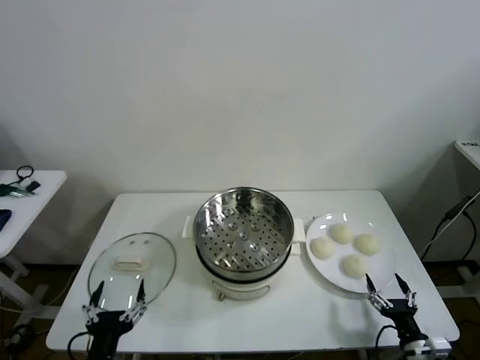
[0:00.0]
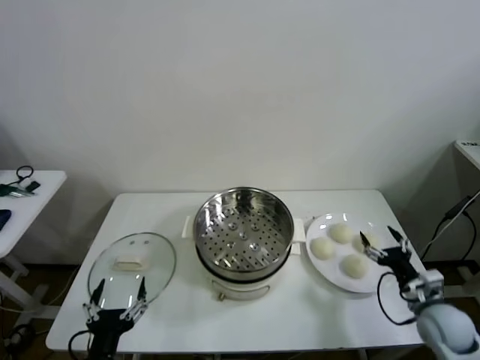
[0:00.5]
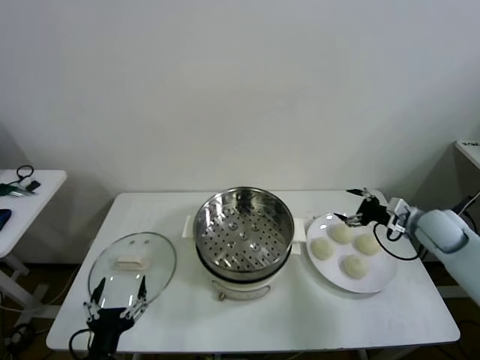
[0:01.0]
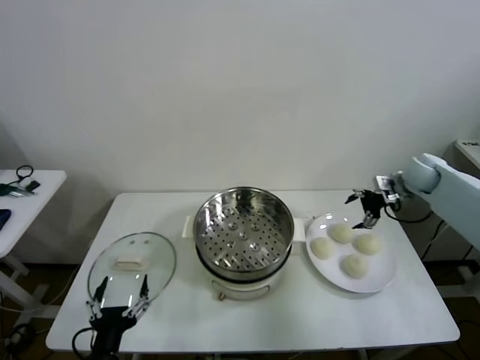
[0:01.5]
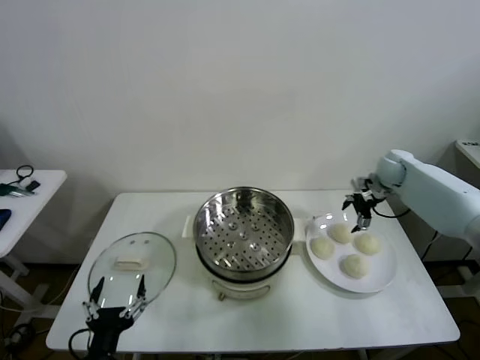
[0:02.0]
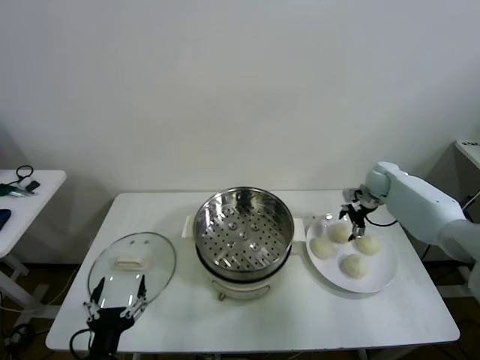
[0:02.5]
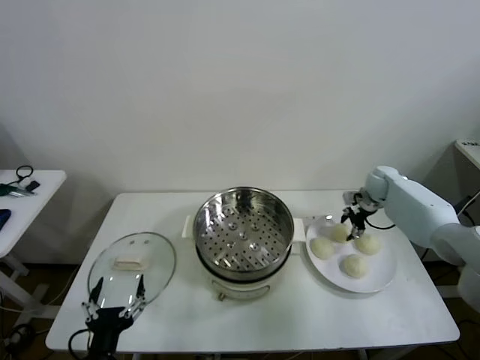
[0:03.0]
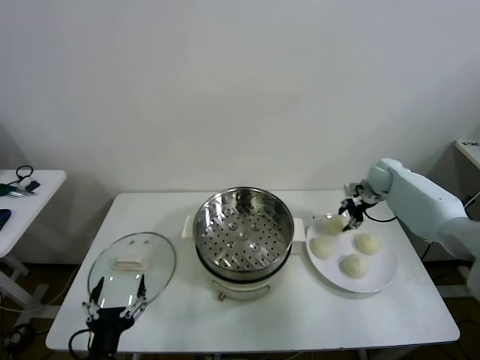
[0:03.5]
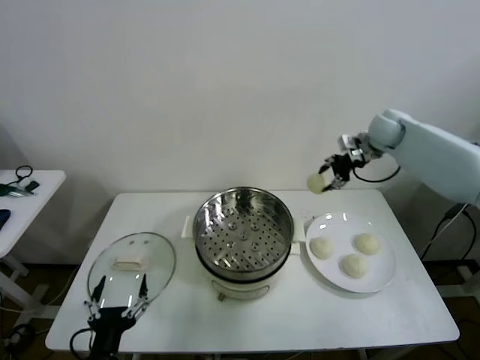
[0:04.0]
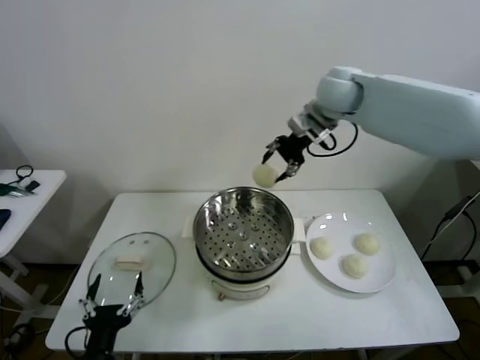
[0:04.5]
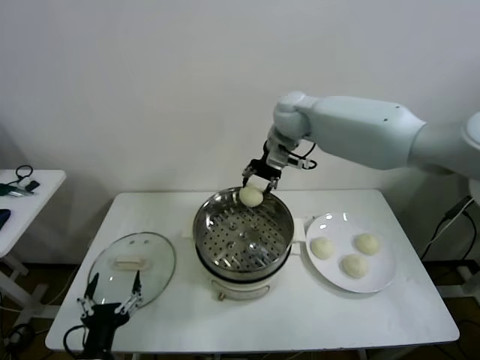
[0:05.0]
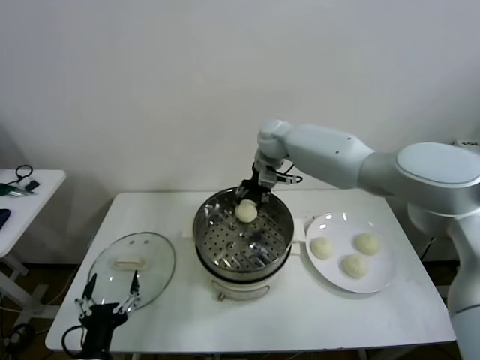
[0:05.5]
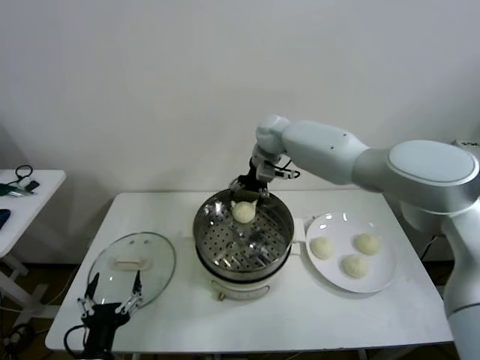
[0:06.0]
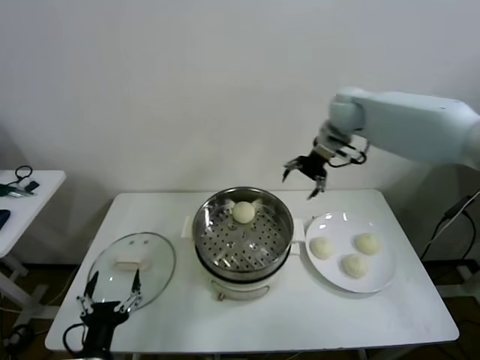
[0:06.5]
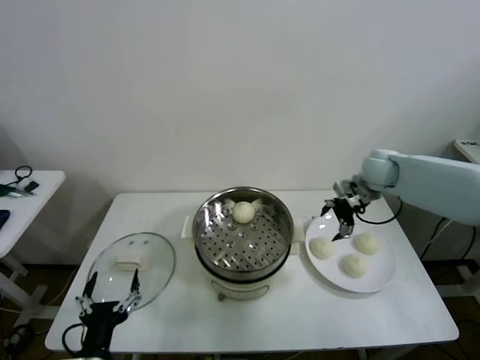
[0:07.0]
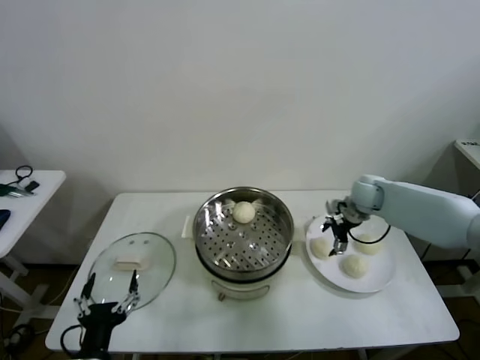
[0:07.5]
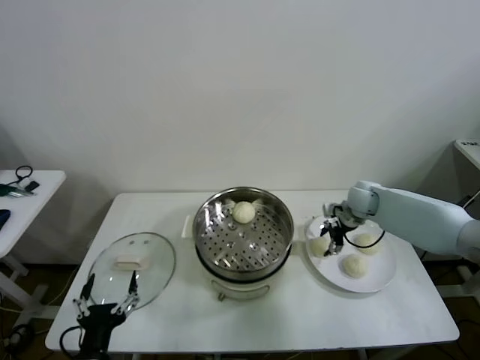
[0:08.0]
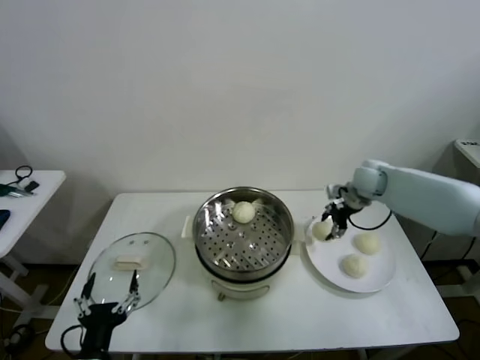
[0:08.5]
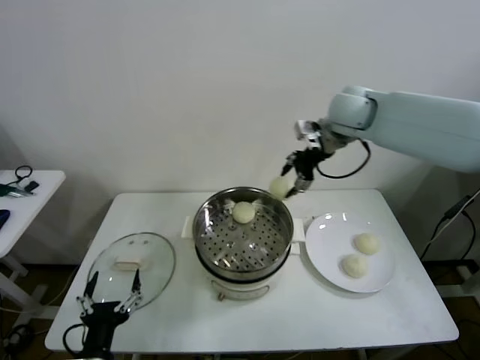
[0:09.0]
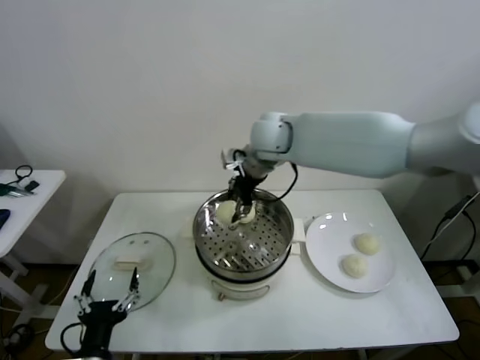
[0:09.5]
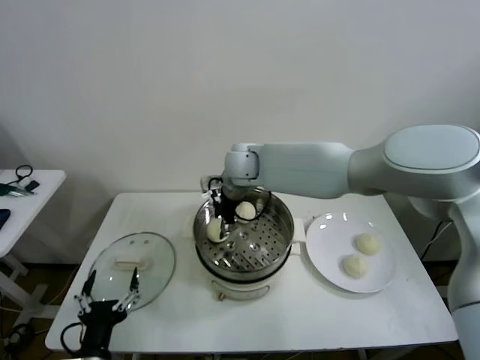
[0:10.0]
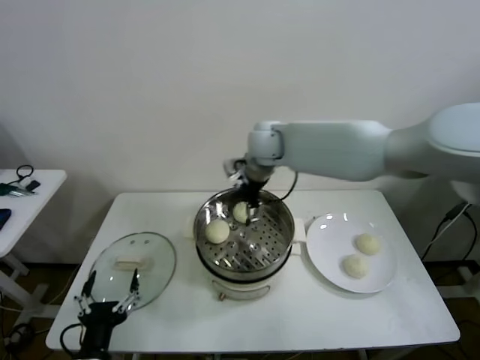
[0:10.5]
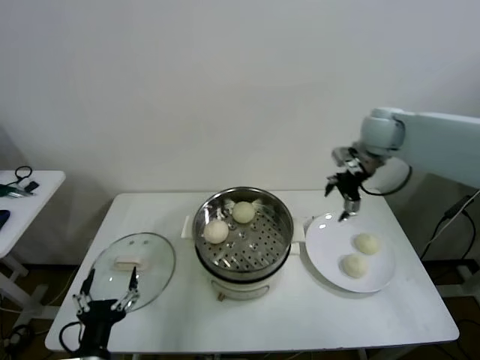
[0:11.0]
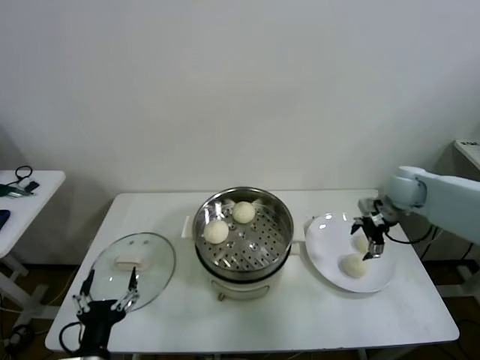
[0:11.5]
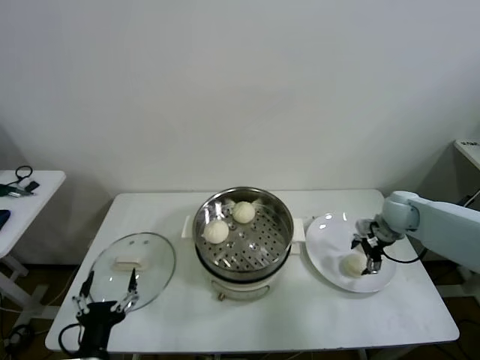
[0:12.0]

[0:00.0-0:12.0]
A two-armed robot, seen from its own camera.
Task of the whole recording: take steamed baozi put them in steamer then cover it.
Step, 0:00.0 to 0:03.0: Grasp the baozi in the plate with right gripper.
Step, 0:03.5 to 0:06.0: Place the baozi on the steamer with right gripper.
Step, 0:06.5 to 0:08.0: Grasp the baozi in the plate with right gripper.
Step, 0:08.5 to 0:10.0: Place the baozi on the steamer with right gripper.
0:02.0 to 0:04.0: The right gripper heads upward and to the left, covering roughly 15 cm, and closes.
0:04.0 to 0:06.0: The right gripper moves to the left, about 25 cm, and opens.
0:06.0 to 0:08.0: The right gripper shifts about 30 cm to the right and downward, and closes its fingers.
0:08.0 to 0:10.0: The right gripper moves to the left and upward, approximately 35 cm.
0:10.0 to 0:12.0: The right gripper is displaced to the right by some 40 cm, and opens up.

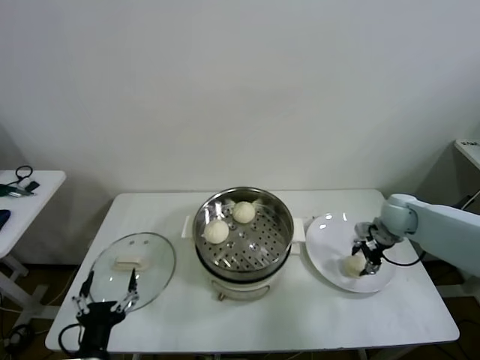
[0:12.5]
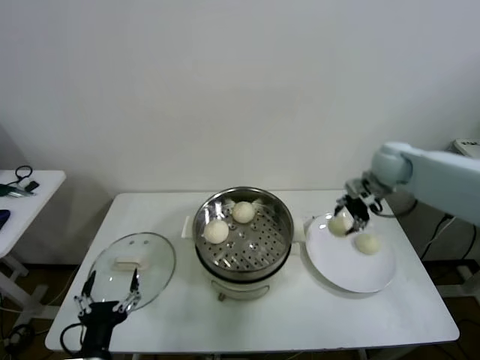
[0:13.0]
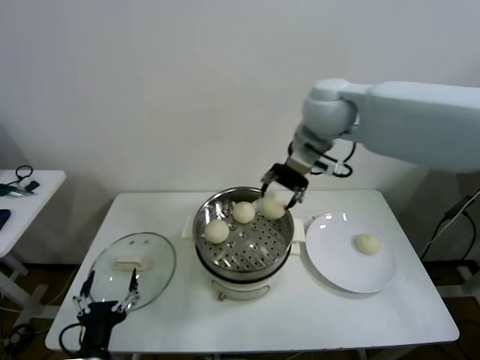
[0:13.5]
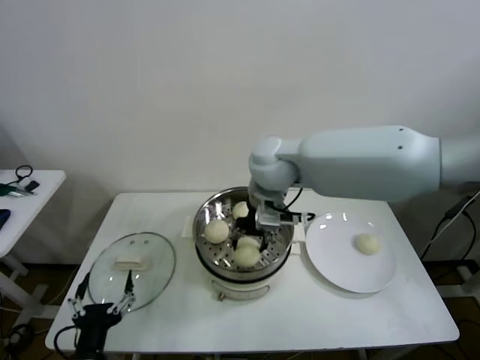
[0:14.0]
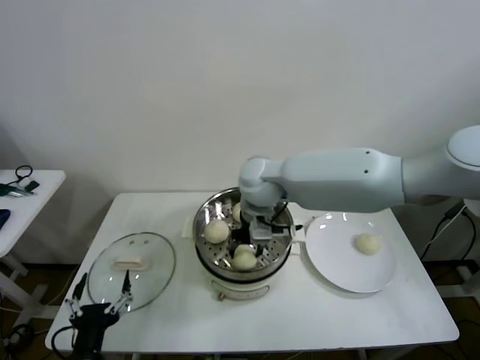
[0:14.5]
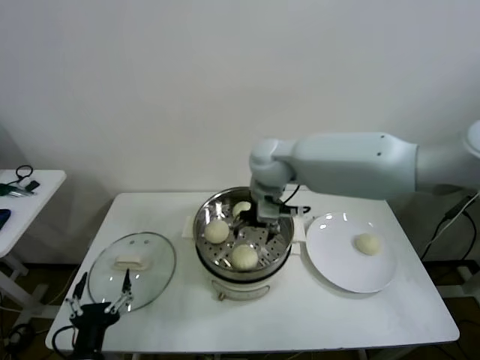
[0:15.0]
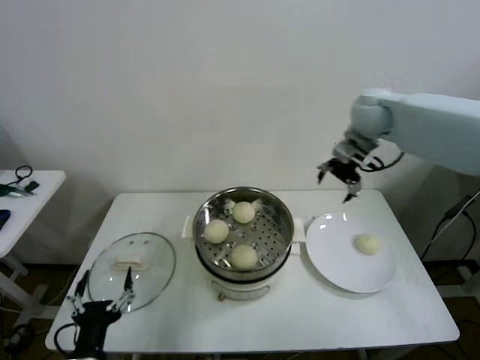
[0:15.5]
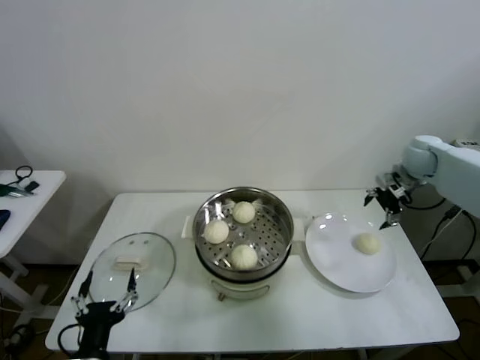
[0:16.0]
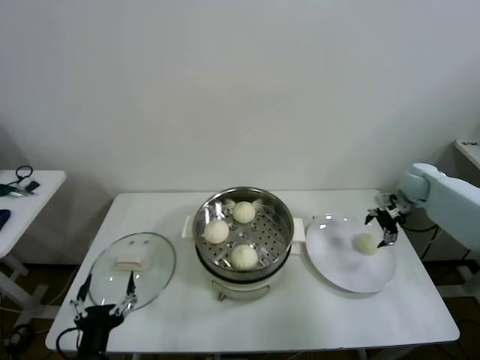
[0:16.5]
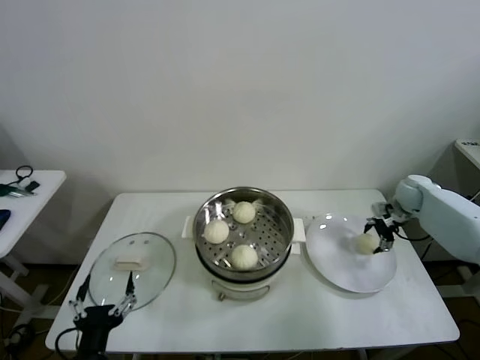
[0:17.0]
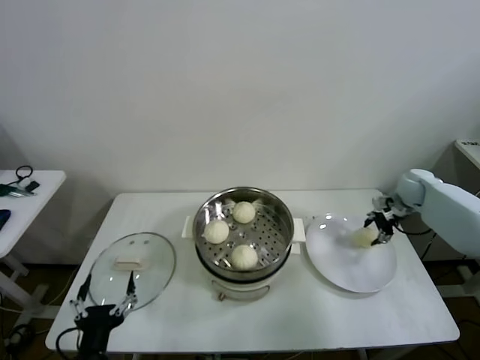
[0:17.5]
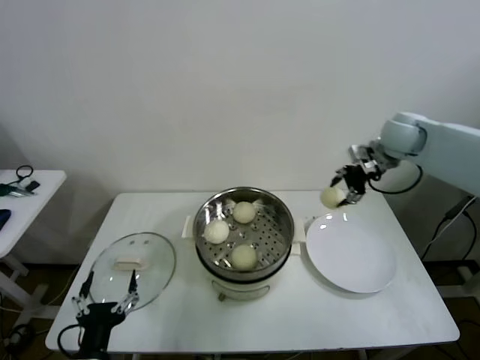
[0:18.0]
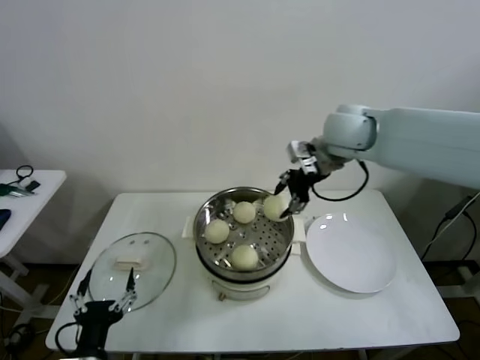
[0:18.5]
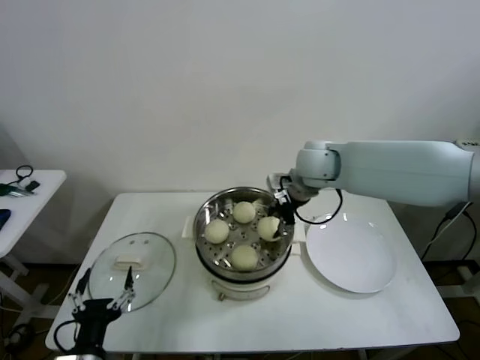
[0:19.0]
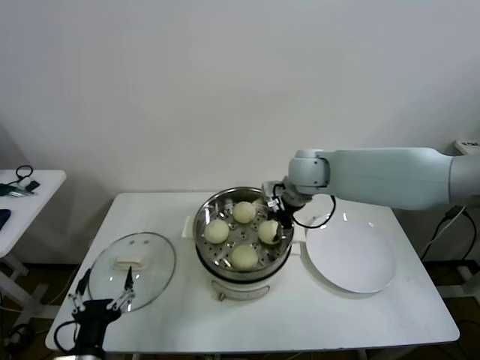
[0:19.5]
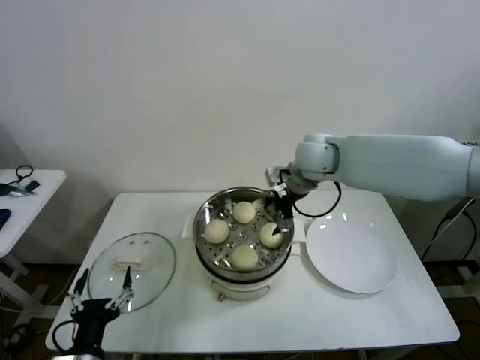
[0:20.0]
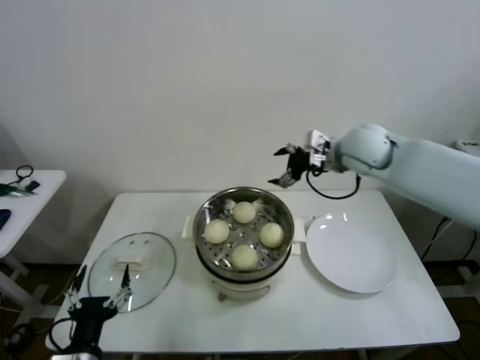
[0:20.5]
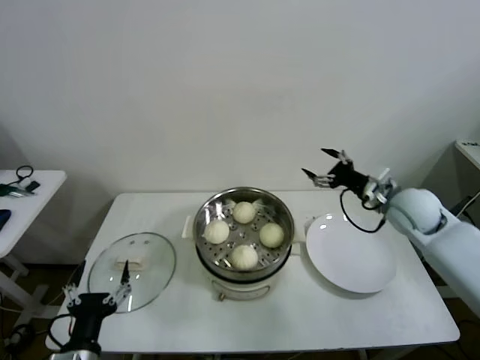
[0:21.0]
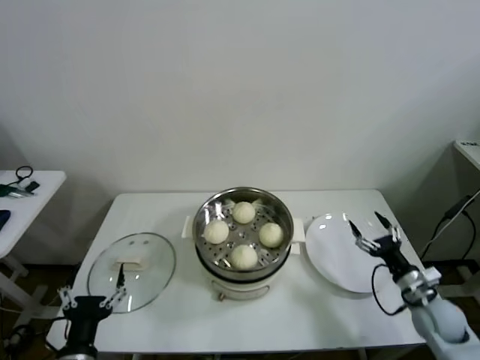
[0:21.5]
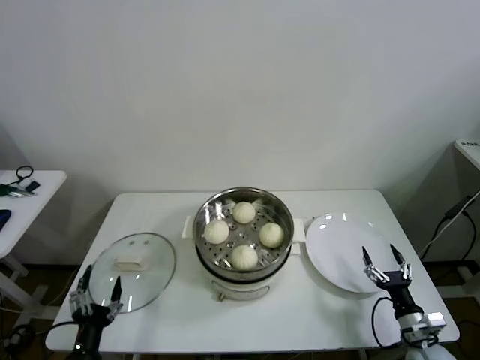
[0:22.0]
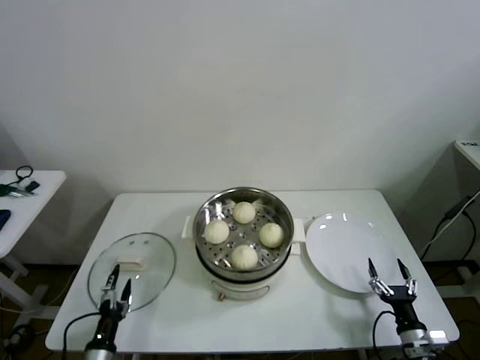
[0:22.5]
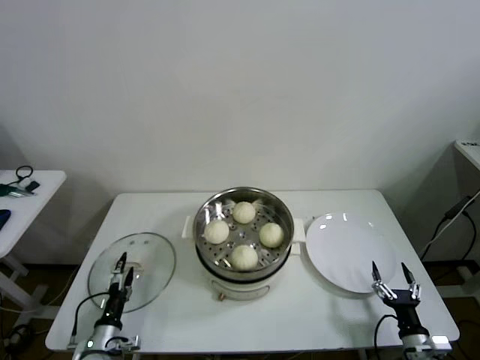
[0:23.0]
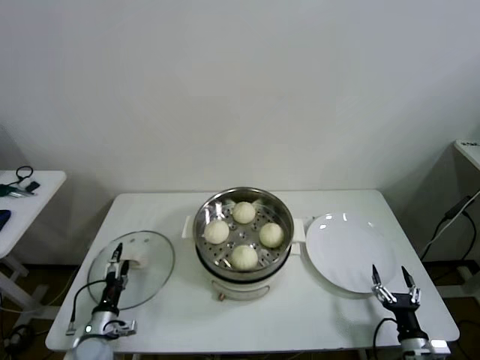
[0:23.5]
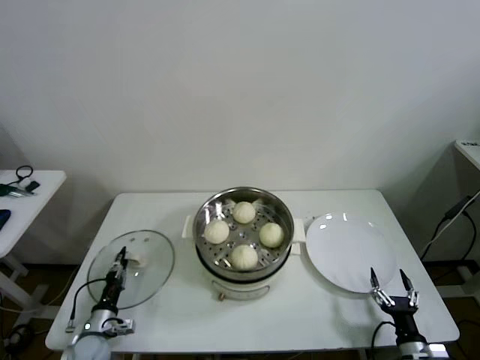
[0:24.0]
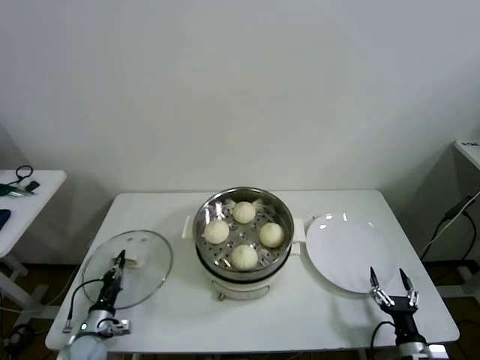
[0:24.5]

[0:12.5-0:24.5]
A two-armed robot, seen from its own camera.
Task of the whole recording: take steamed baozi put them in steamer then cover it.
Step, 0:13.0 to 0:14.5: Place the baozi on the steamer with right gripper.
Step, 0:15.0 to 0:17.0: Grasp the baozi in the plate with right gripper.
Step, 0:17.5 to 0:19.5: Place the baozi on the steamer with right gripper.
Step, 0:20.0 to 0:24.5: Grasp the pot lid with left gripper.
0:12.5 to 0:14.5: The right gripper travels to the left by about 35 cm.
0:14.5 to 0:16.5: The right gripper shifts approximately 40 cm to the right, and opens up.
0:16.5 to 0:18.5: The right gripper shifts about 35 cm to the left and upward, and closes.
0:18.5 to 0:20.5: The right gripper opens up.
0:20.5 to 0:22.5: The right gripper moves downward, backward and to the right, some 50 cm. Meanwhile the left gripper moves downward, approximately 15 cm.
0:22.5 to 0:24.5: The left gripper moves forward and to the left, roughly 10 cm, and closes up.

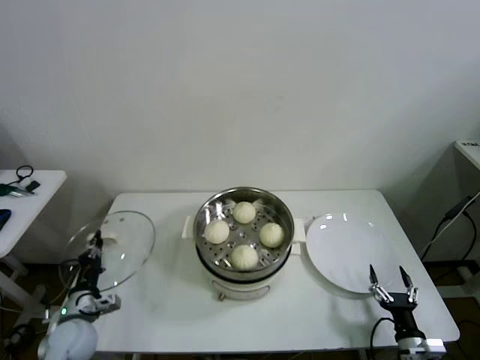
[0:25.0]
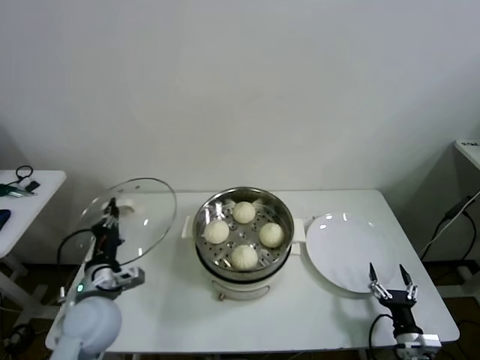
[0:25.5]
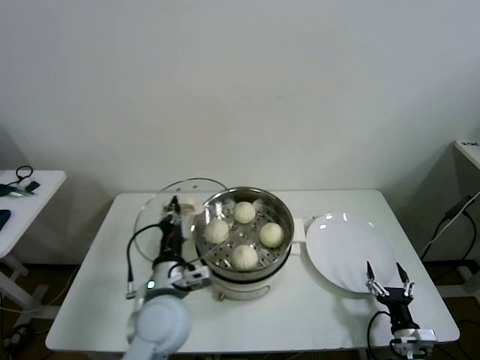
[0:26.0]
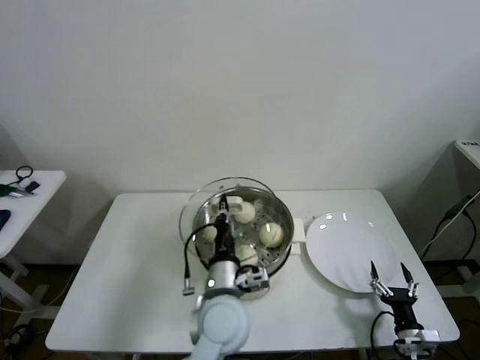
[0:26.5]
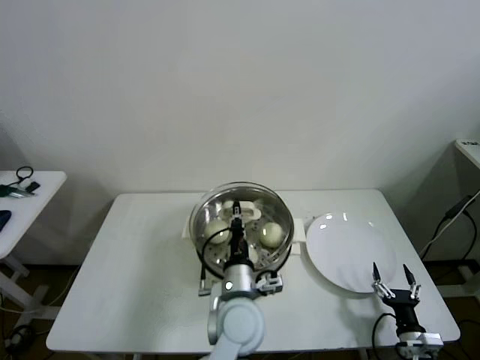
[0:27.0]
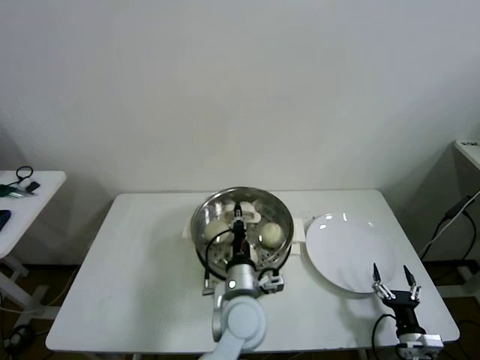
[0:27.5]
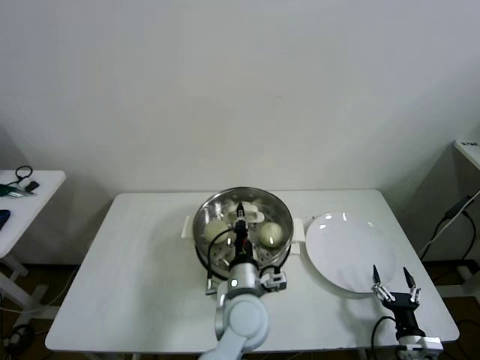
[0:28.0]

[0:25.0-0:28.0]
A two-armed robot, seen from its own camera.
Task of the whole recording: take steamed baozi put them in steamer then cover it.
0:25.0 to 0:26.5: The left gripper moves to the right and upward, about 35 cm.
0:26.5 to 0:28.0: The left gripper ends up some 5 cm from where it was.
